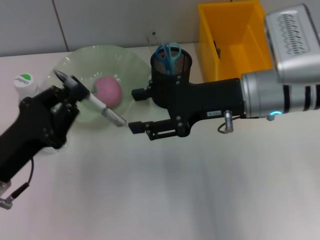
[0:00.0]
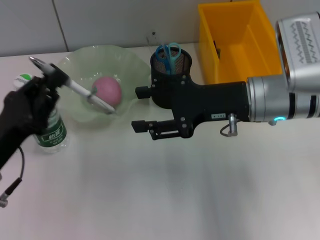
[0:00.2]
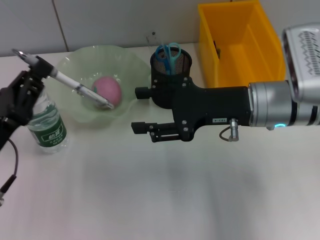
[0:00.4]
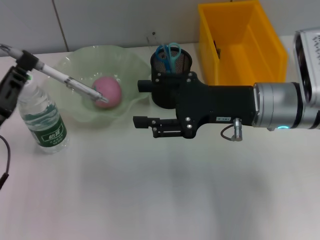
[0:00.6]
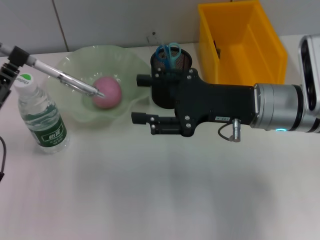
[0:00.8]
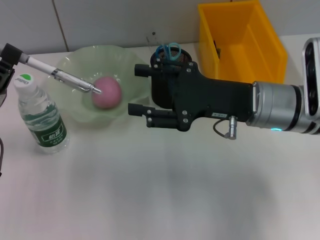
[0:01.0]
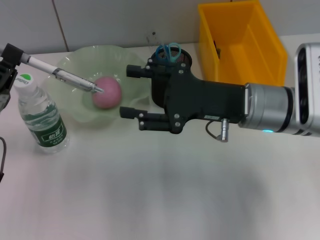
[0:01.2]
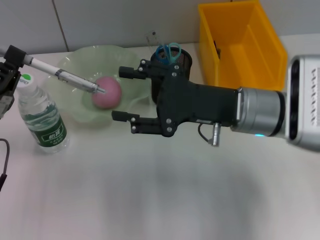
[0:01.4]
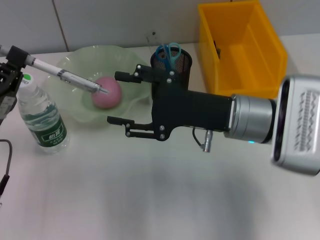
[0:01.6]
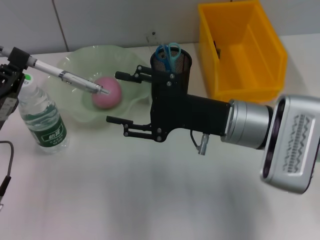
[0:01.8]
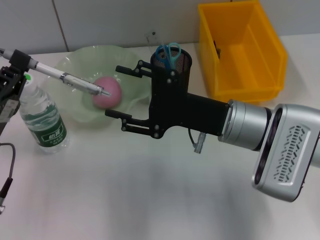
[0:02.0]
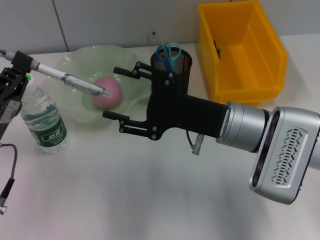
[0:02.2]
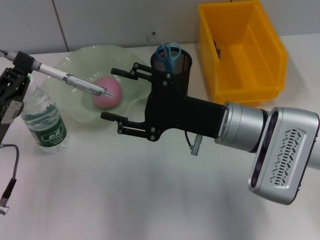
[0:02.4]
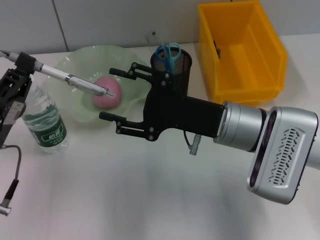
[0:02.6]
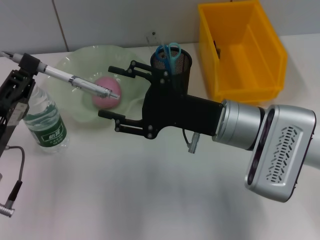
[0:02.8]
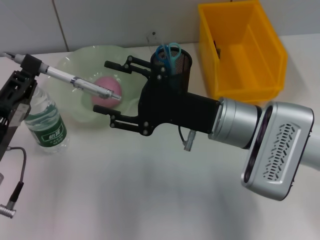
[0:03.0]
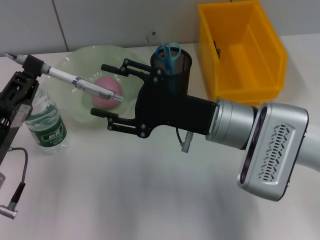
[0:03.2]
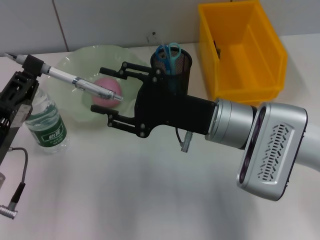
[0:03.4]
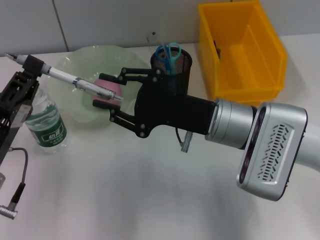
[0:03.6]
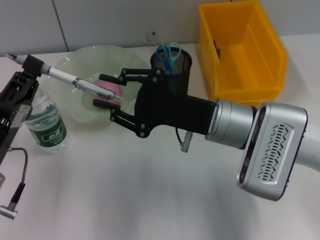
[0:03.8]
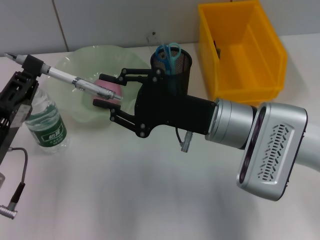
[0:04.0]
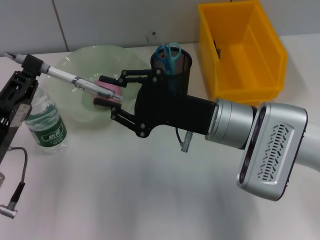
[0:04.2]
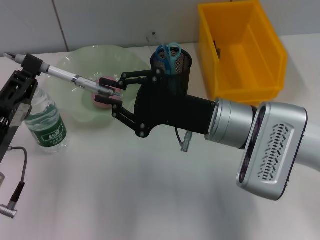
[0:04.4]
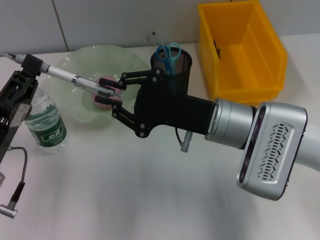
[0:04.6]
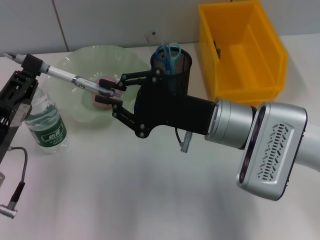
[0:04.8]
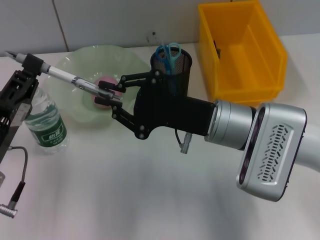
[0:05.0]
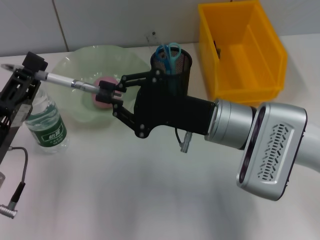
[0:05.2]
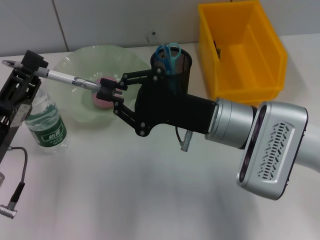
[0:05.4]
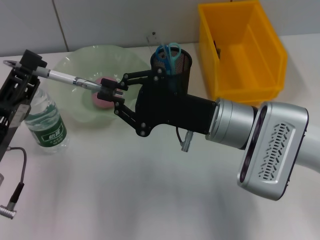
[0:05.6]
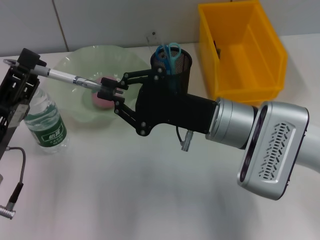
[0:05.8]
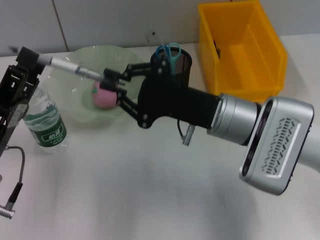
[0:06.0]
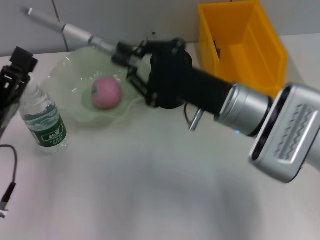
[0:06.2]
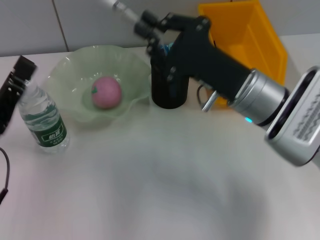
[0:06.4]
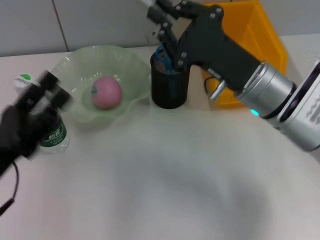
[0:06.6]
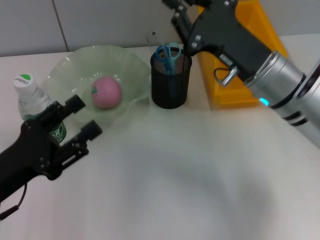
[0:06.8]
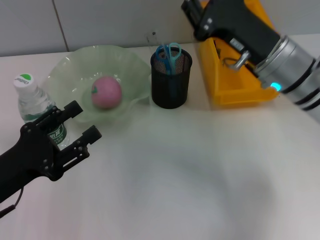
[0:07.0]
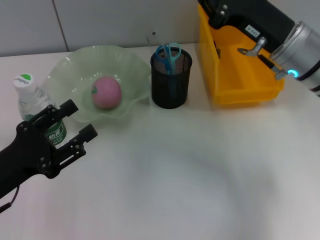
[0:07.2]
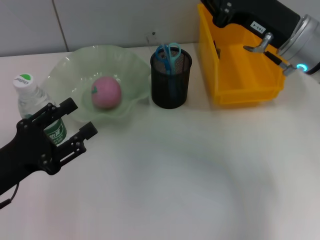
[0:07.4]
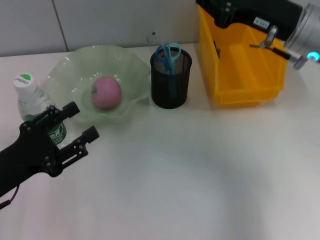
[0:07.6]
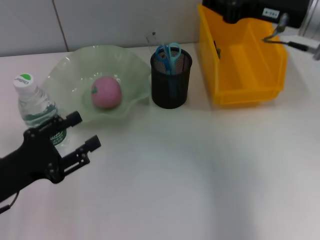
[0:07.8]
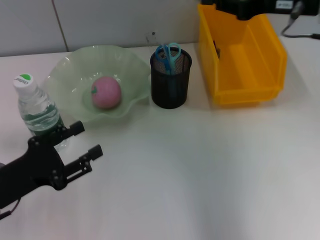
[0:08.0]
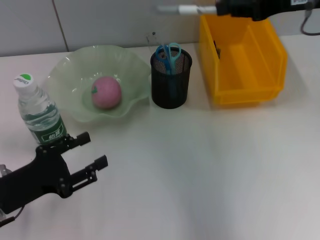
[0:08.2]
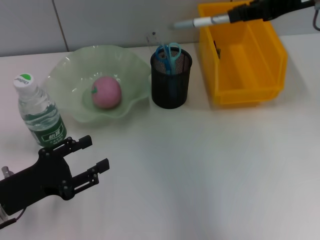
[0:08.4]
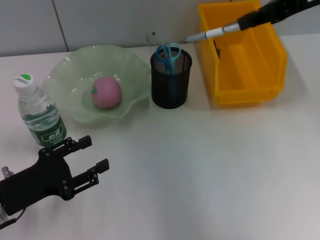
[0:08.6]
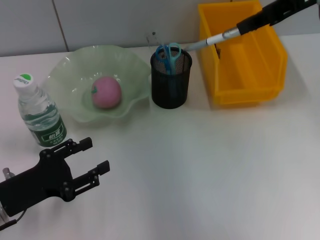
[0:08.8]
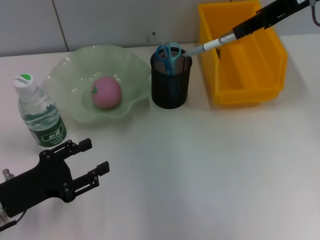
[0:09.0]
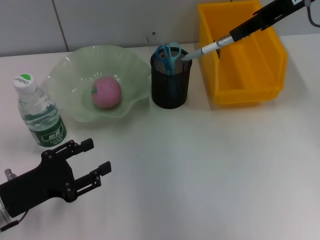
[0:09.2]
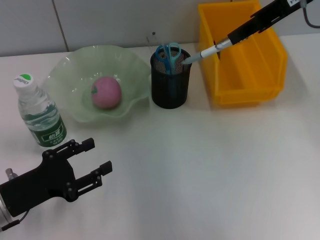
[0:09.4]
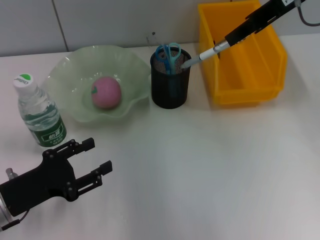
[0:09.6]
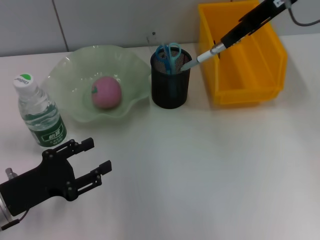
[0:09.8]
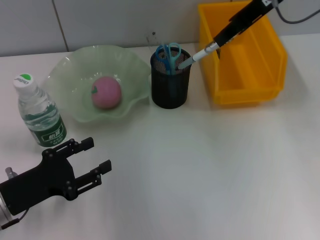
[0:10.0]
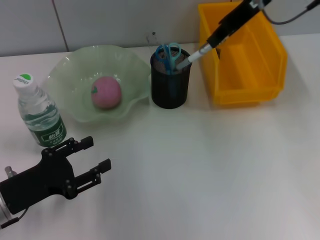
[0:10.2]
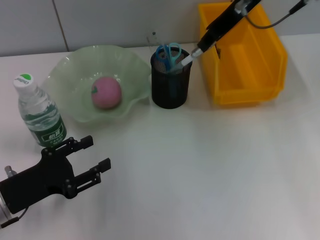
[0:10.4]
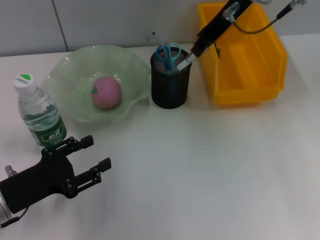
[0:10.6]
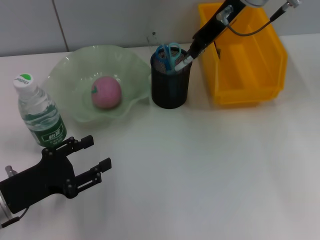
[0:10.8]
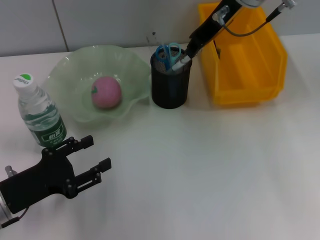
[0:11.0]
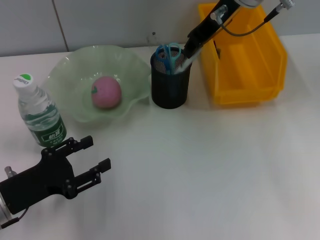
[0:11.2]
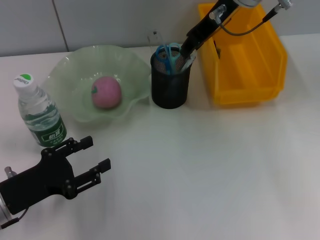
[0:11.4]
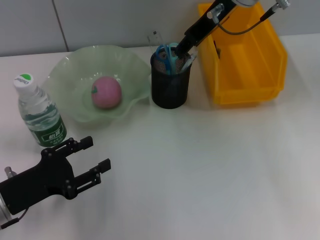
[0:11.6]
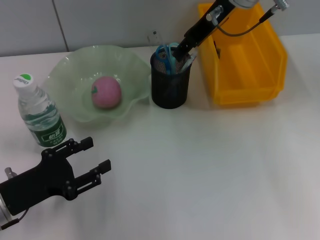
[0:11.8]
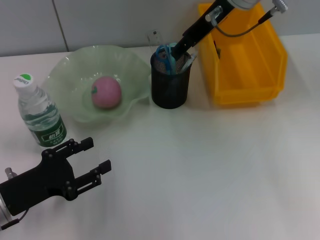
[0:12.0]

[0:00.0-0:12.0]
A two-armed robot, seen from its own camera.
Step, 0:00.0 to 0:05.8: Pass the gray spring-action pen from the left hand to the right hand.
Step, 0:06.0 to 0:11.4: Place the gray spring-action pen into the pen holder with the right hand.
0:00.0 to 0:01.6: The right gripper moves about 5 cm.
0:01.6 to 0:03.0: There are only small adjustments of the grippers.
0:03.0 to 0:04.4: The right gripper closes its fingers.
0:04.4 to 0:06.0: The left gripper opens up.
0:06.0 to 0:07.6: The right gripper moves to the right, upward and forward, approximately 15 cm.
0:07.6 to 0:09.0: The right gripper moves upward, roughly 10 cm.
0:09.0 to 0:10.4: The right gripper travels to the left by about 10 cm.
0:10.4 to 0:12.0: The right gripper opens its fingers.

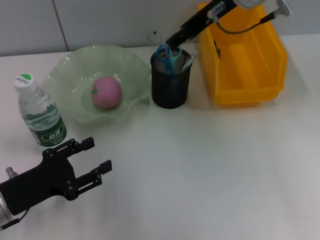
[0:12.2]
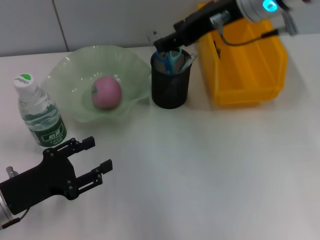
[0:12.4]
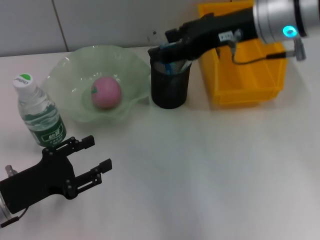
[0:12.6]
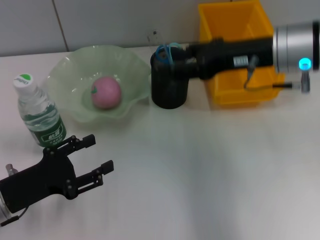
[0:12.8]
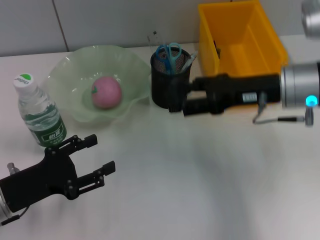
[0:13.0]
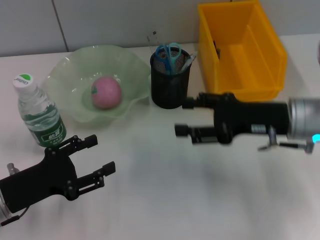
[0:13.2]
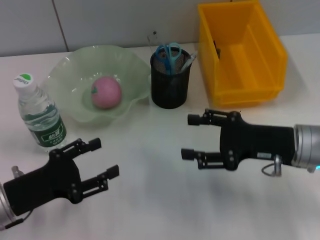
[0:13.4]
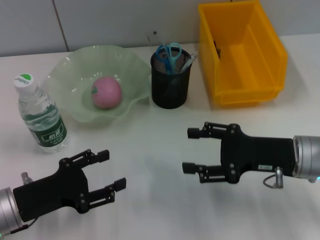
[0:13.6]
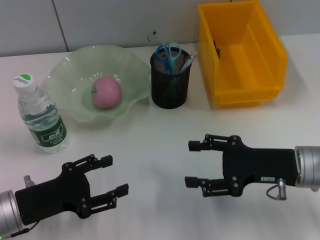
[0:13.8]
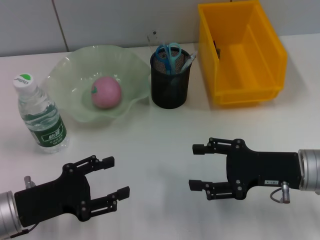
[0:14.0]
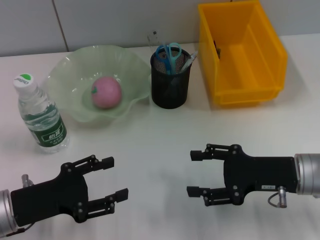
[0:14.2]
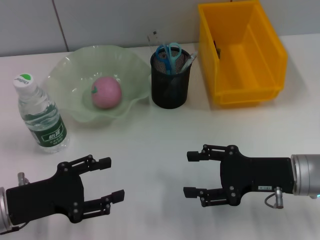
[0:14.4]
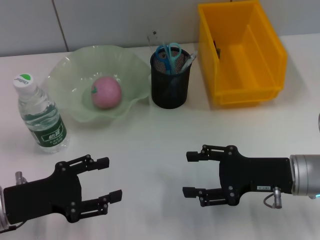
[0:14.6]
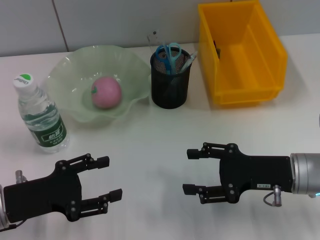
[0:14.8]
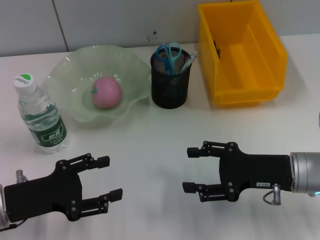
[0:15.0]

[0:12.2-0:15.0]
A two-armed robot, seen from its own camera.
0:12.2 to 0:13.6: The right gripper goes some 25 cm downward, backward and to the right.
0:13.6 to 0:15.0: There are only small adjustments of the grippers.
